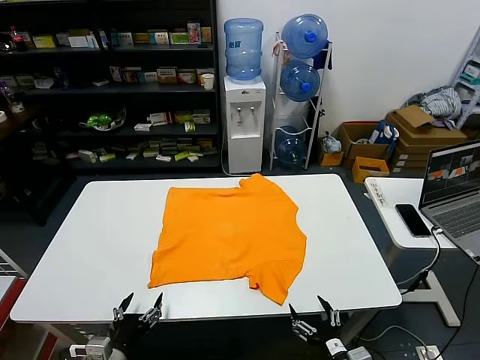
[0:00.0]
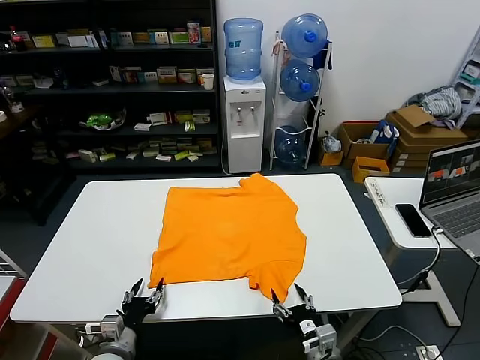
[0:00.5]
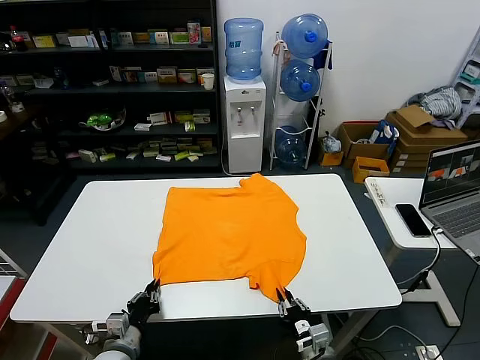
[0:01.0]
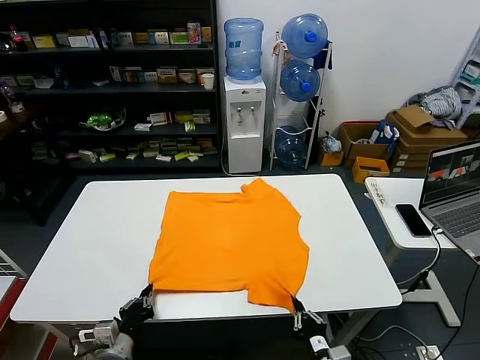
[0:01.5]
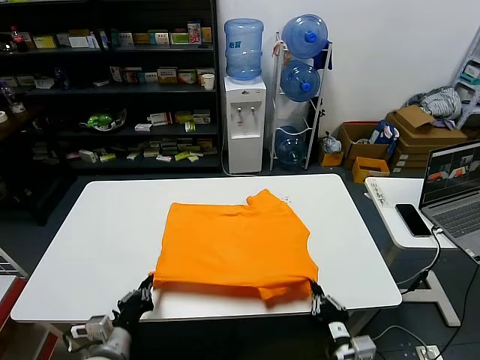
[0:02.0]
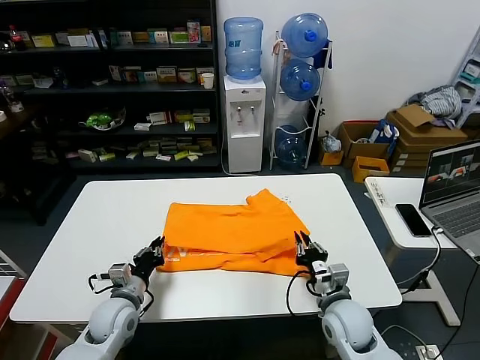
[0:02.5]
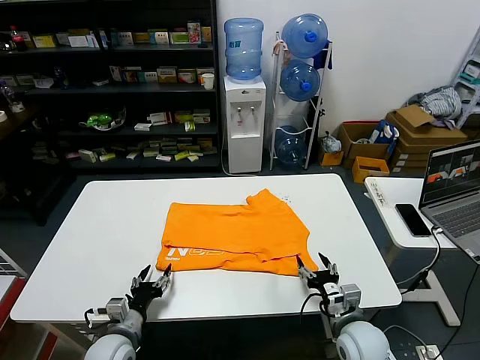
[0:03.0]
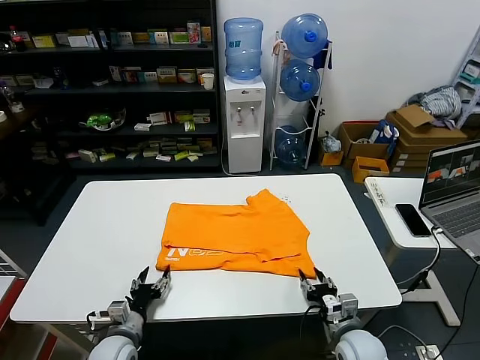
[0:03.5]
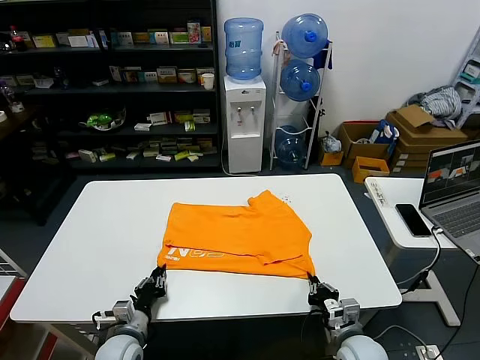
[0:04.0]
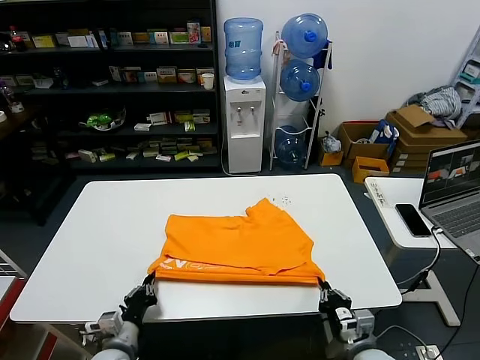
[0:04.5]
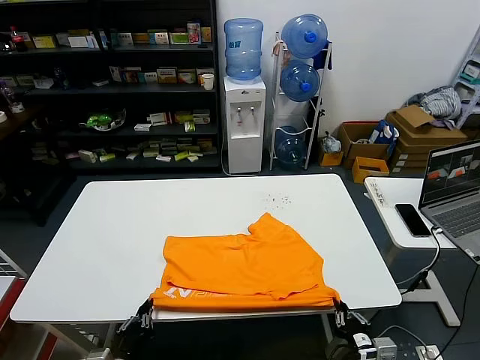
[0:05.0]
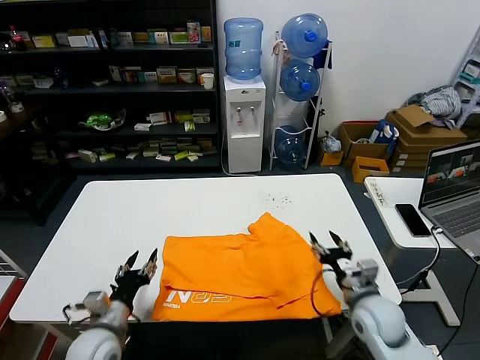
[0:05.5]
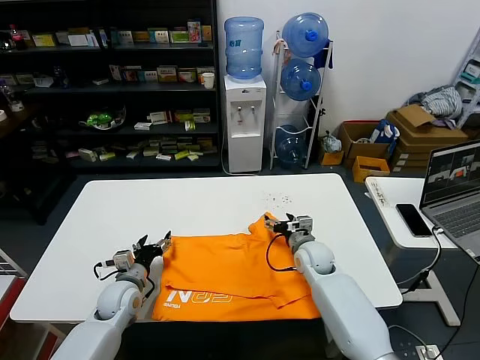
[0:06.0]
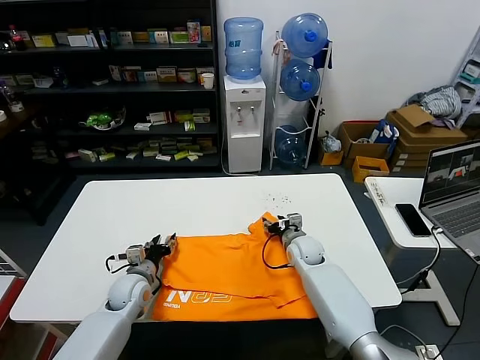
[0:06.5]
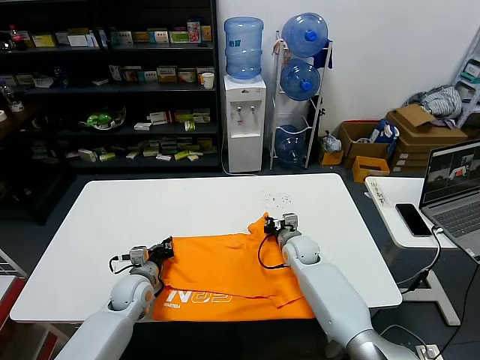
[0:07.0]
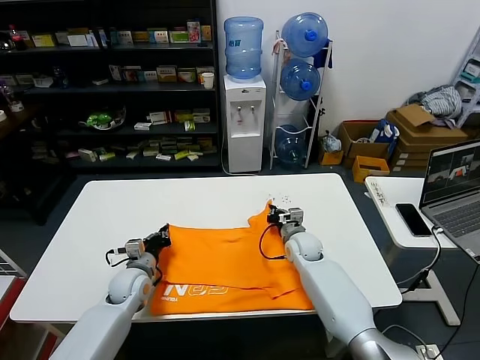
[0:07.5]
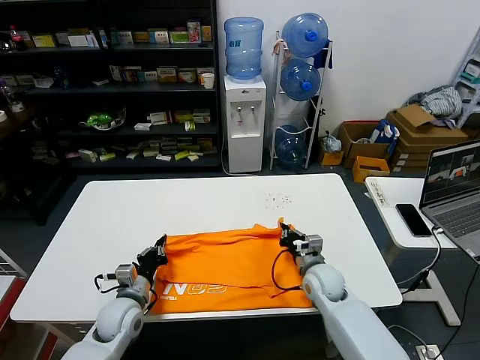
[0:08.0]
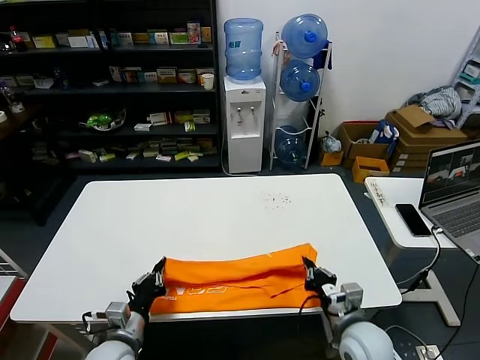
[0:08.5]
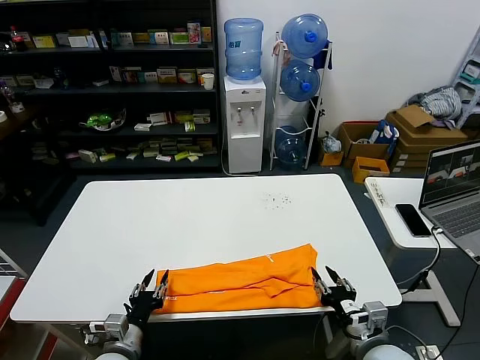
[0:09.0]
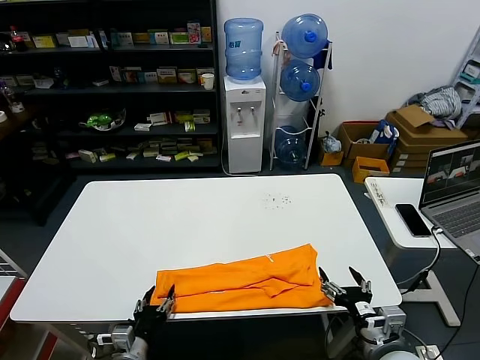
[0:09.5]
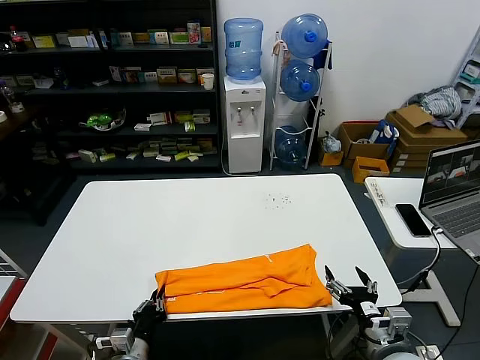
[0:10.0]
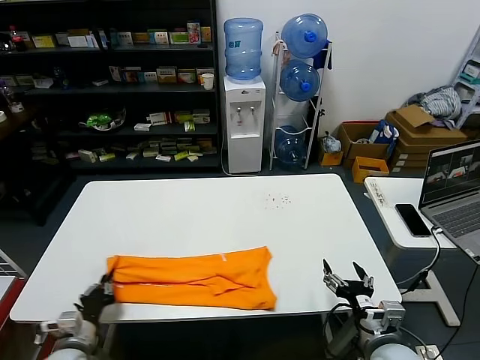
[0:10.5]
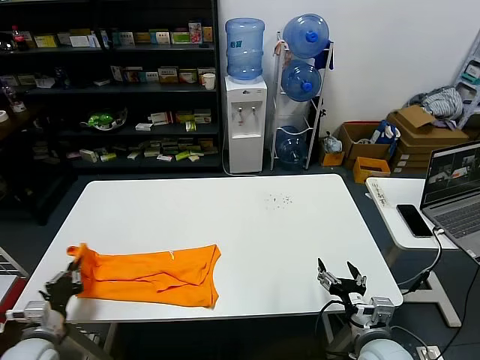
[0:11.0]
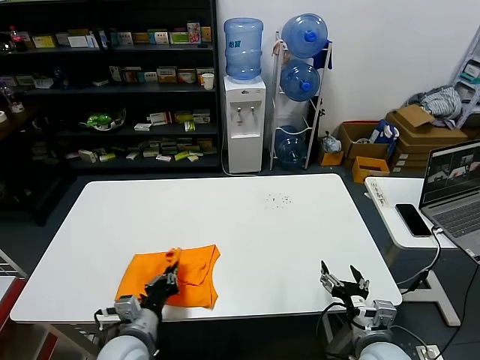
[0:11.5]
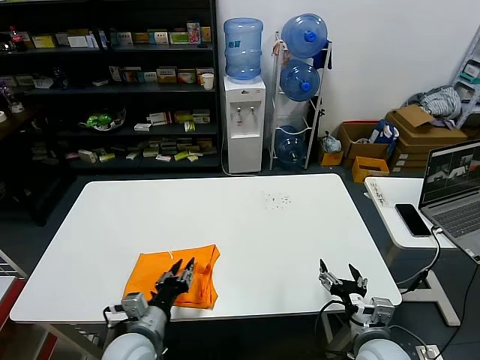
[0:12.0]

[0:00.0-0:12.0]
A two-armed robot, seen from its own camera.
Task of the whole recording: fold and organize the clothes.
Step, 0:00.0 to 0:01.0: use both grippers simultaneously to clamp the lower edge of the clothing fabric.
Step, 0:01.5 to 0:02.5: use both grippers to drag the lower edge of the fabric forward and fold it over the upper edge.
Step, 0:03.0 to 0:05.0: Drag the clothes downward with both gripper.
Step, 0:05.5 to 0:07.0: use both grippers simultaneously to clamp the upper edge of the clothing fabric.
Step, 0:07.5 to 0:08.5: use both grippers to drag the upper edge of the fabric backward and fold it over the lower edge.
Step, 0:09.0 to 0:10.0: use the left gripper to clamp the left edge of the fabric.
Step, 0:10.5 to 0:11.5: use the left gripper to drag the left edge of the fabric to the left and folds it over the right edge.
0:02.0 to 0:04.0: The two grippers go some 10 cm downward and forward. The left gripper opens and closes again. Meanwhile the right gripper opens and closes again.
0:04.0 to 0:06.0: The right gripper travels forward by approximately 20 cm, and opens; the left gripper goes some 10 cm forward and upward, and opens its fingers.
0:06.0 to 0:08.0: The left gripper closes up. The right gripper moves backward, about 5 cm, and closes up.
0:08.0 to 0:10.0: The left gripper shifts approximately 15 cm backward, and opens, then closes again, while the right gripper goes roughly 20 cm backward, and opens up.
0:10.0 to 0:12.0: The left gripper heads upward, covering approximately 10 cm, and reaches about 20 cm to the left, then returns.

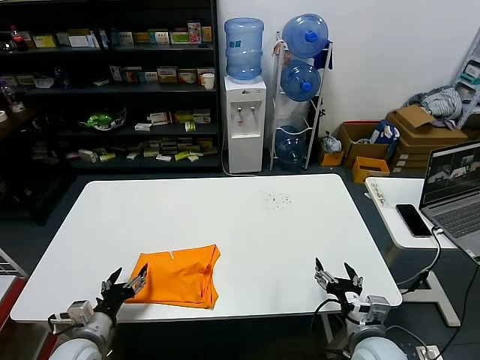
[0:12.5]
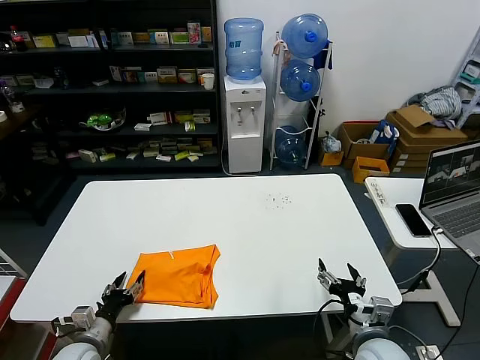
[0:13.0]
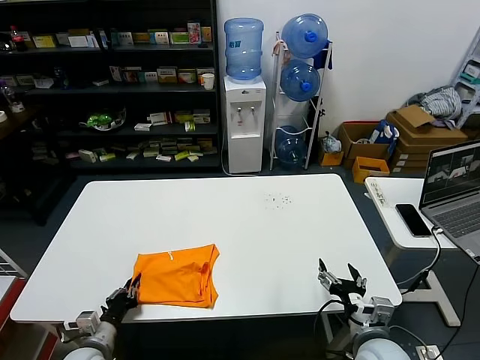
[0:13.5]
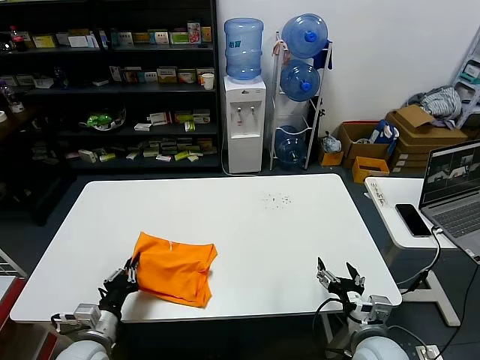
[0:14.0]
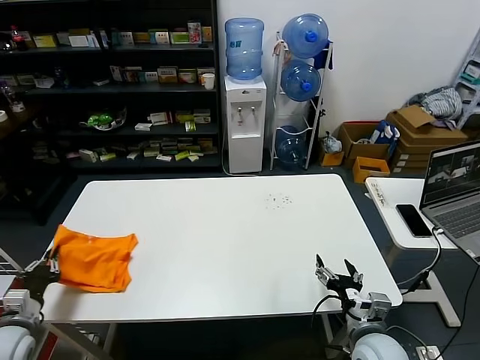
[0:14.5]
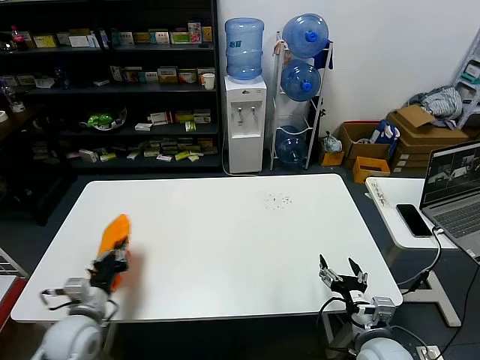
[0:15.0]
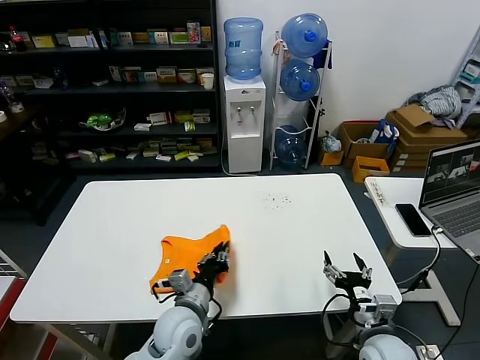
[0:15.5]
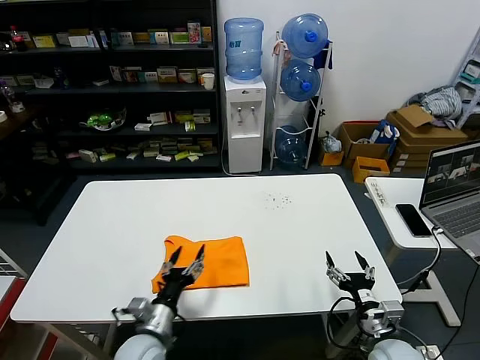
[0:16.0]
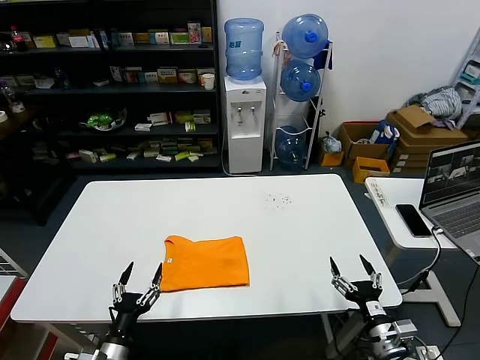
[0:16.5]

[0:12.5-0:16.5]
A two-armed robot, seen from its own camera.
Task of the whole recording: fold and organize the clothes.
Step, 0:12.5 to 0:15.5: Flip the folded clothes over with left gripper.
0:12.5 to 0:14.5: The left gripper is displaced to the left by approximately 15 cm, and closes.
0:14.5 to 0:16.5: The right gripper moves to the right, approximately 5 cm, while the left gripper heads to the right, covering approximately 20 cm, and opens up.

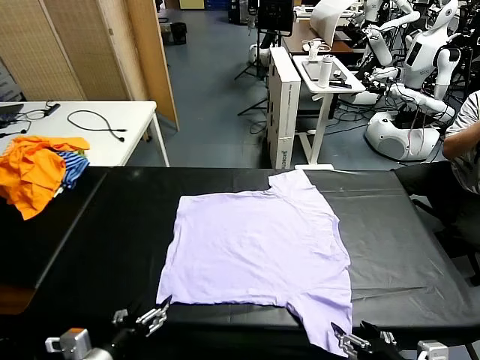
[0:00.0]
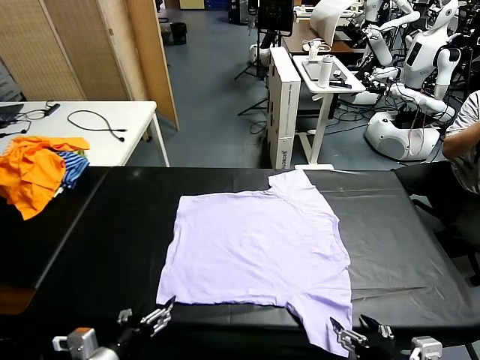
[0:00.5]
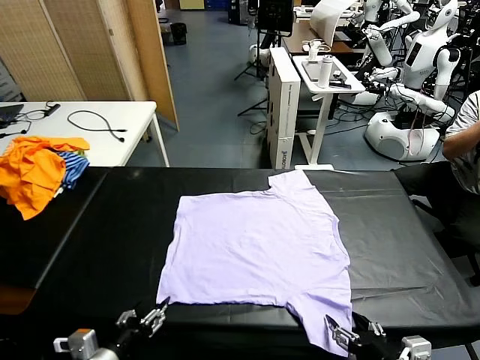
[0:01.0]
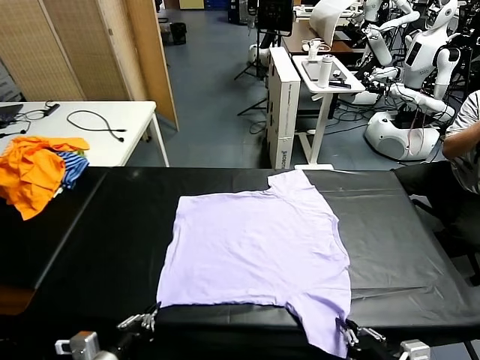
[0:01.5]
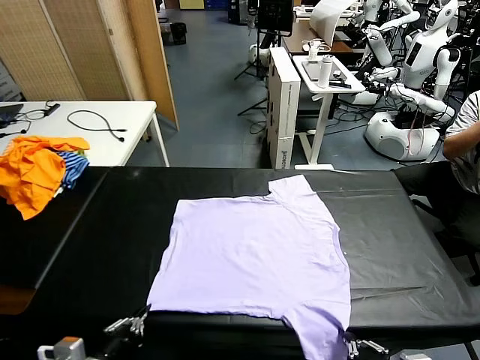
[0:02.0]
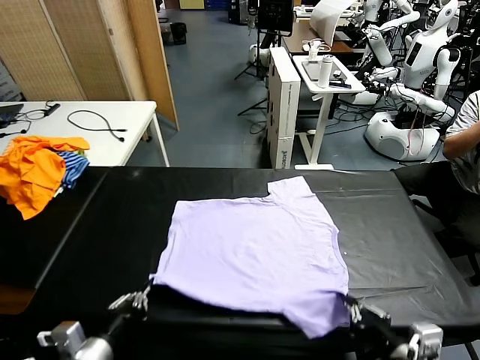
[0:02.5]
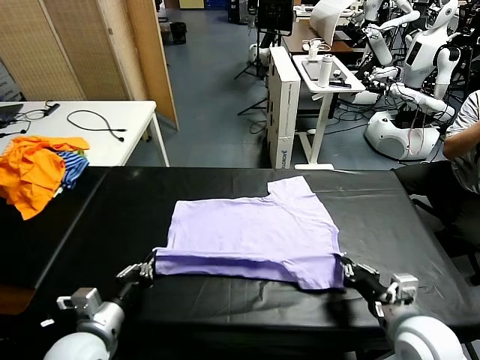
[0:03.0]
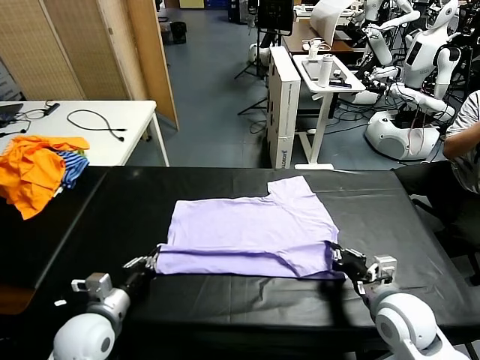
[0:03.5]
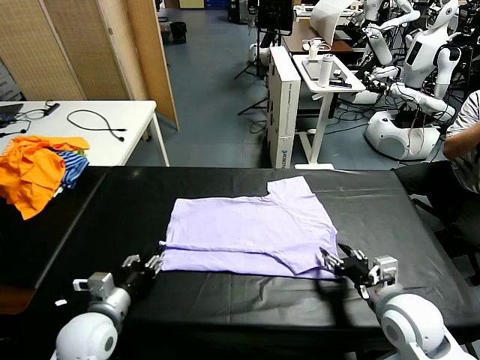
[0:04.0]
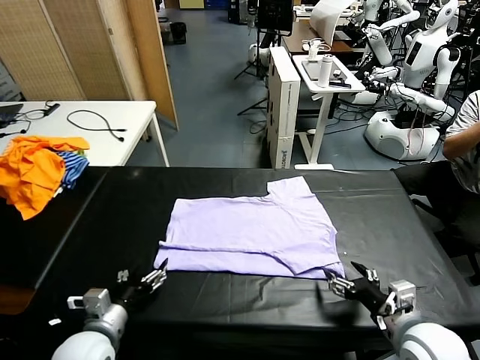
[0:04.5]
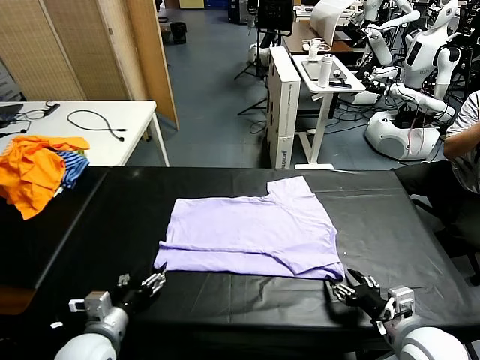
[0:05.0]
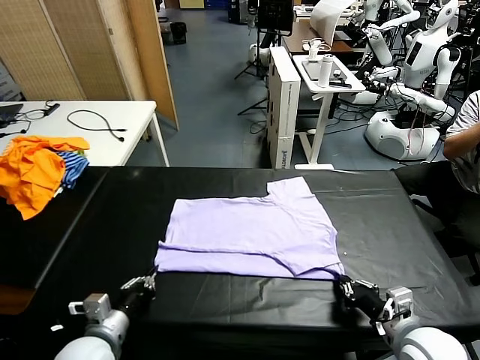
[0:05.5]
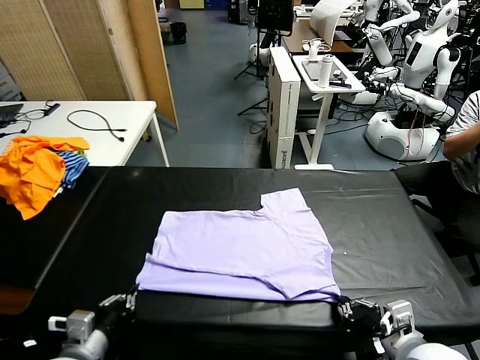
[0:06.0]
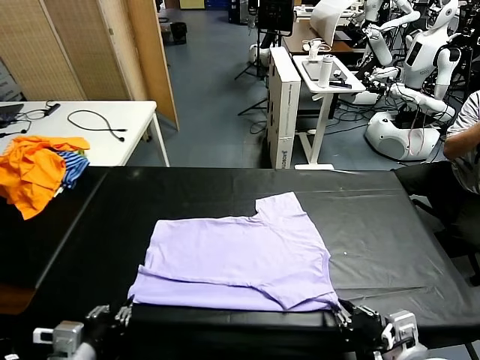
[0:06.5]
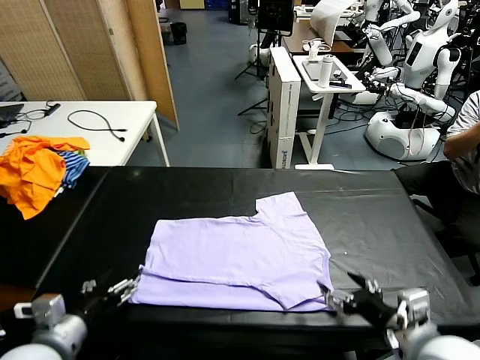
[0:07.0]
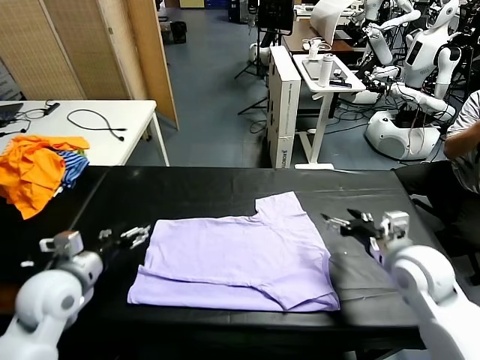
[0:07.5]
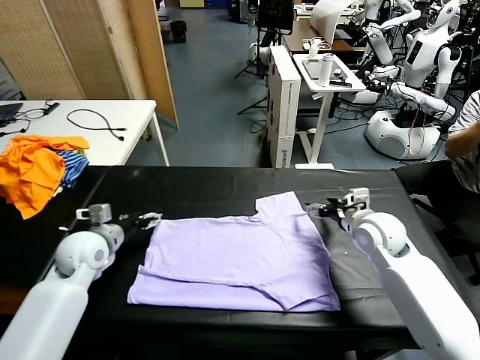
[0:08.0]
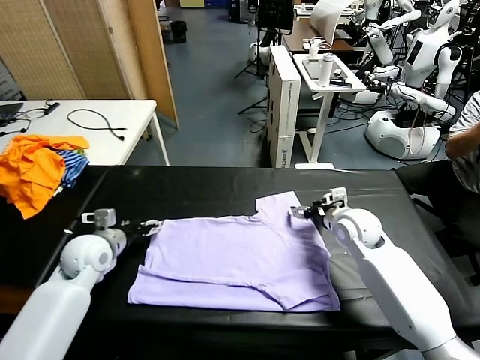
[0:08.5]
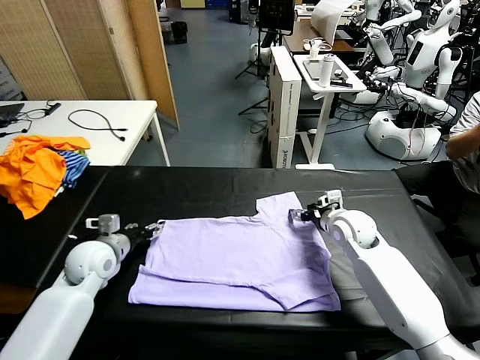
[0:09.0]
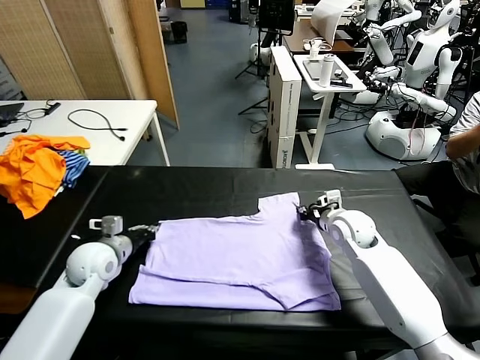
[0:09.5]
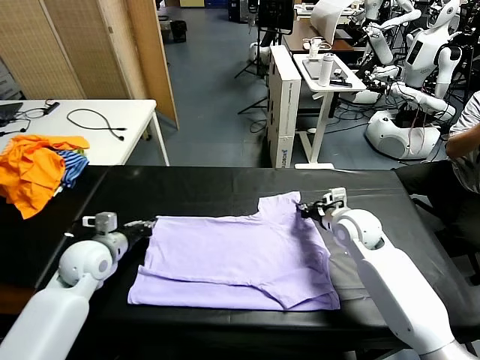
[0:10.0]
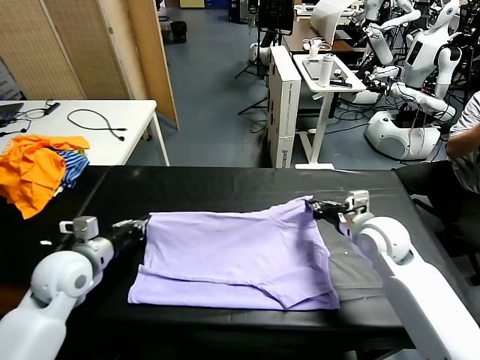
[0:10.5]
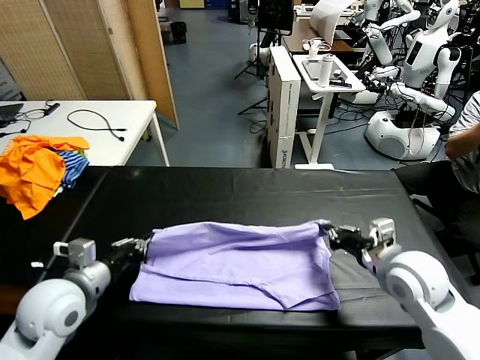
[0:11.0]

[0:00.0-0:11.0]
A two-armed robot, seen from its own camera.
Task of the whole recording: fold and organize the clothes.
Step, 0:00.0 to 0:01.5: use both grippers simultaneously to clamp the lower edge of the clothing fabric.
Step, 0:02.0 to 0:04.0: use both grippers to drag the lower edge of the fabric forward and fold it over the upper edge.
Step, 0:04.5 to 0:06.5: Drag the clothes downward with both gripper.
Step, 0:07.0 to 0:09.5: use both grippers simultaneously to clamp the upper edge of the clothing fabric.
0:02.0 to 0:03.5: Both grippers travel together forward, approximately 15 cm.
0:03.5 to 0:05.5: The left gripper heads backward, covering roughly 5 cm, and opens and closes again. Meanwhile the right gripper travels backward by roughly 10 cm, and opens, then closes once more.
0:05.5 to 0:07.5: The left gripper shifts some 15 cm forward, upward and to the left, and opens; the right gripper heads forward, covering approximately 20 cm, and opens up.
0:07.5 to 0:09.0: The two grippers go some 10 cm forward and downward. The left gripper closes up; the right gripper closes up.
0:09.0 to 0:11.0: The left gripper moves backward and upward, roughly 15 cm, and closes; the right gripper goes about 20 cm backward, and closes its fingers.
